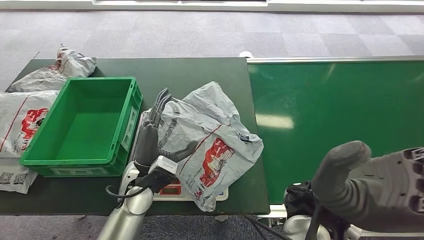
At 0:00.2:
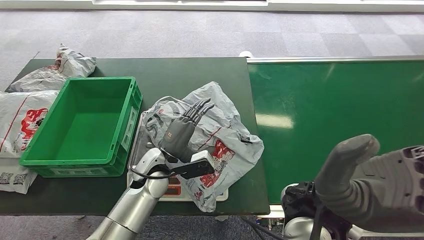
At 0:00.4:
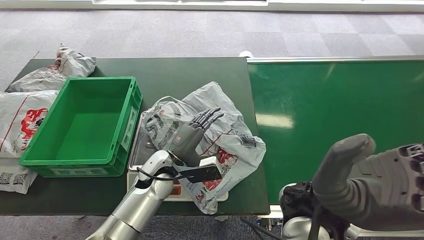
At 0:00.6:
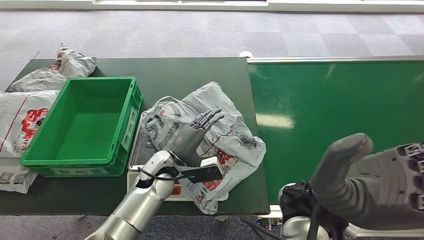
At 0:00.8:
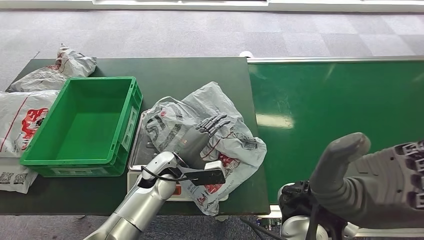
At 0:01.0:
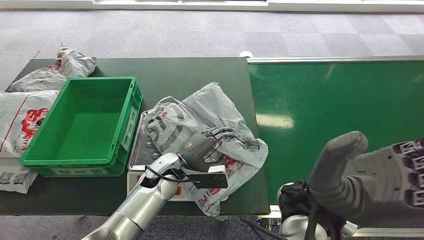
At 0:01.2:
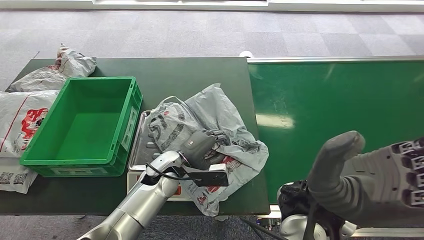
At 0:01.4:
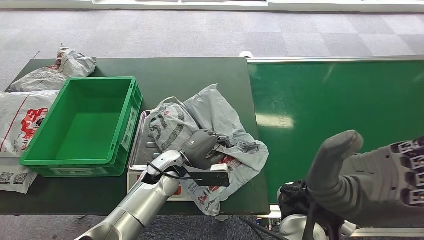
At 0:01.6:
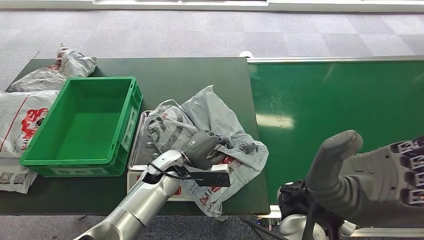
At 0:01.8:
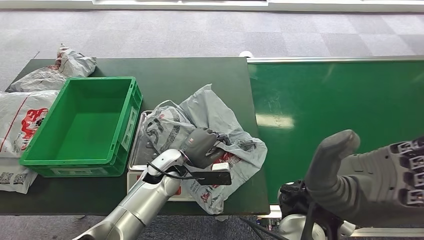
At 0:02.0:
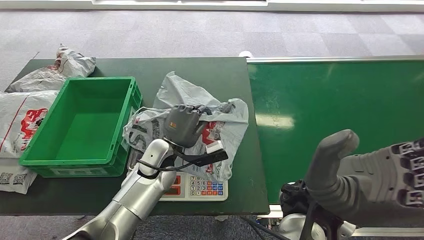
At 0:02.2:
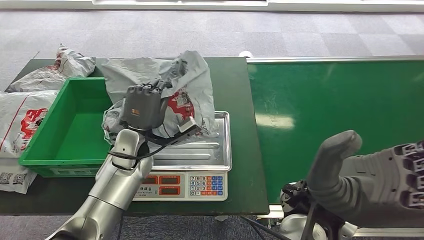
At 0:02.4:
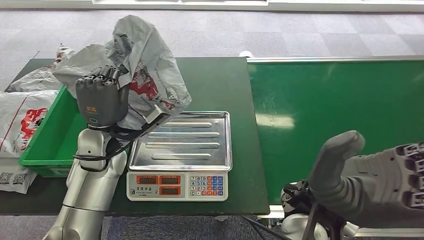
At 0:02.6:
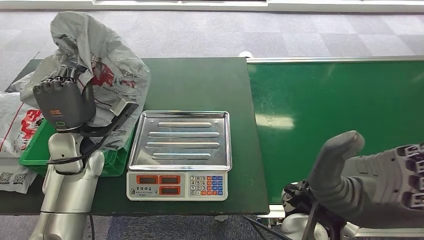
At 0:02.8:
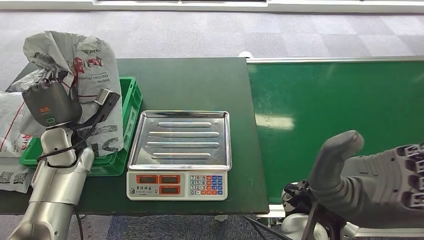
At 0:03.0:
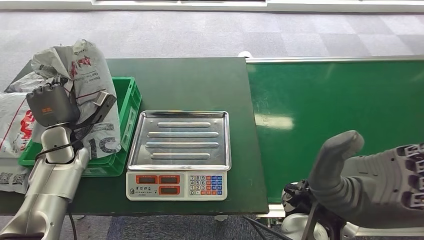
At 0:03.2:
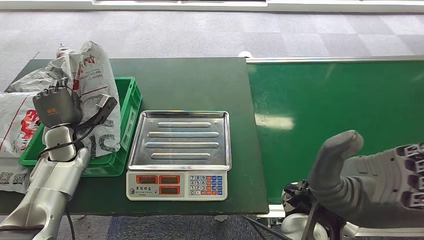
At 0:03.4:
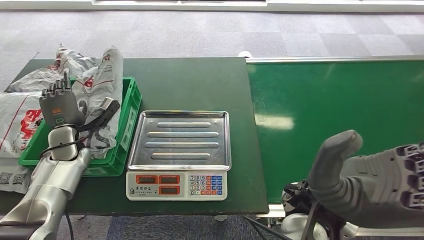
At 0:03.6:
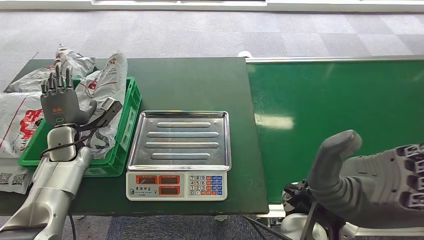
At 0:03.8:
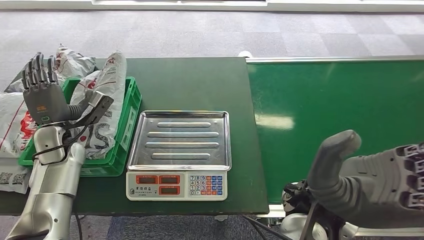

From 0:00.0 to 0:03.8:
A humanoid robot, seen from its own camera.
Step, from 0:00.0 to 0:02.4: Pick up the package from the inbound machine.
Step, from 0:02.6 to 0:03.8: Place the package into the parcel locker.
From 0:00.0 to 0:01.2: The left hand moves about 5 cm.
From 0:02.6 to 0:03.8: The left hand is displaced to the left by about 10 cm.
